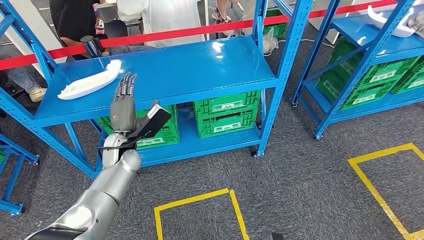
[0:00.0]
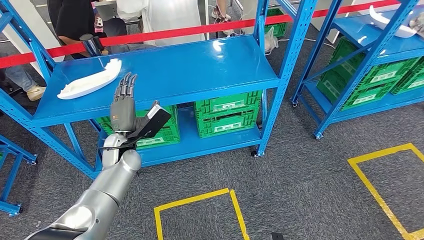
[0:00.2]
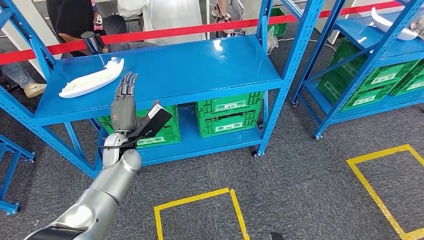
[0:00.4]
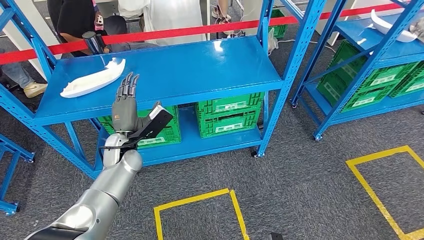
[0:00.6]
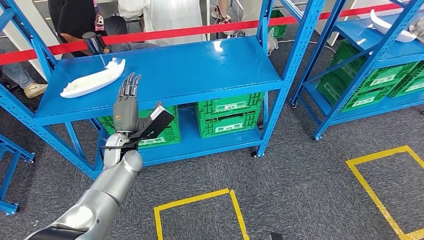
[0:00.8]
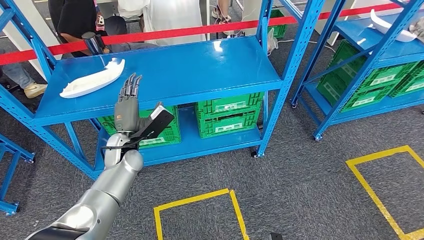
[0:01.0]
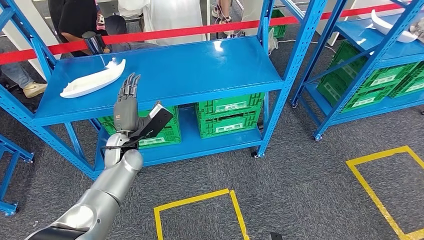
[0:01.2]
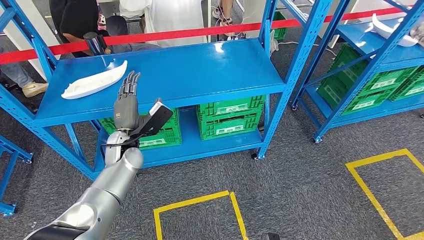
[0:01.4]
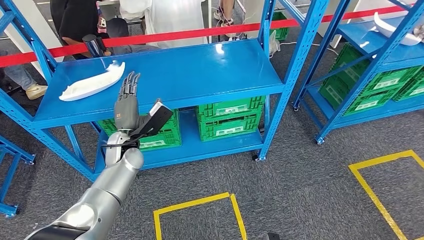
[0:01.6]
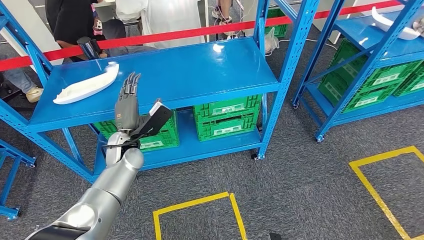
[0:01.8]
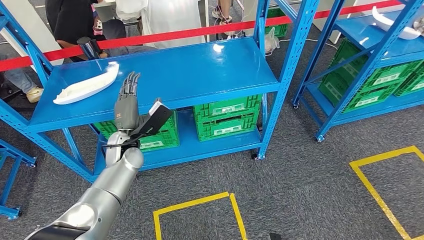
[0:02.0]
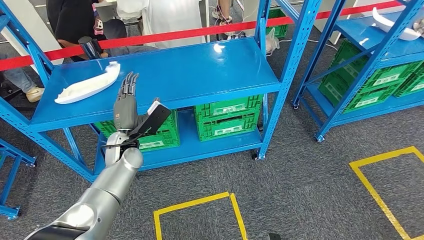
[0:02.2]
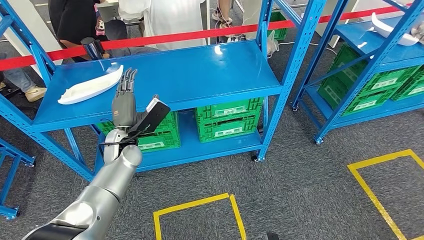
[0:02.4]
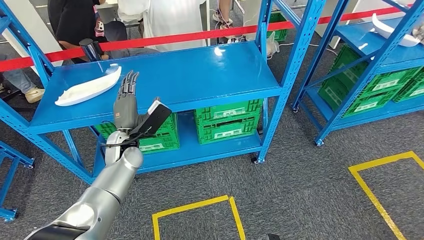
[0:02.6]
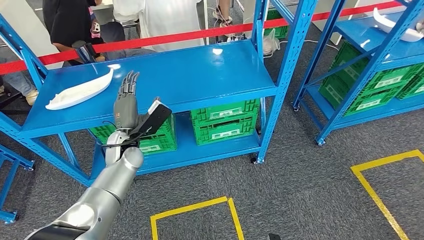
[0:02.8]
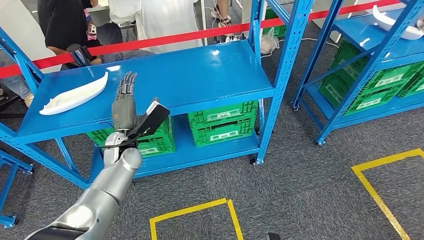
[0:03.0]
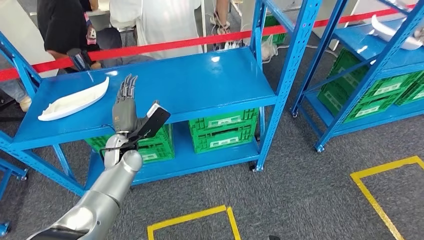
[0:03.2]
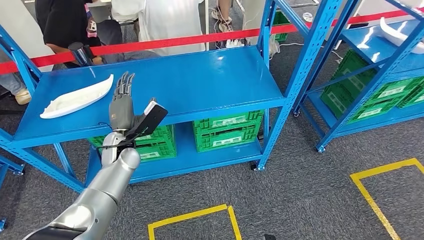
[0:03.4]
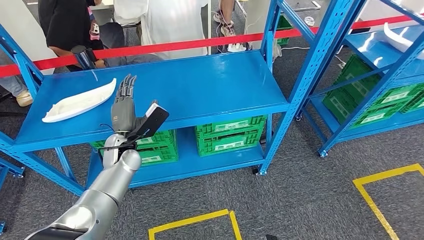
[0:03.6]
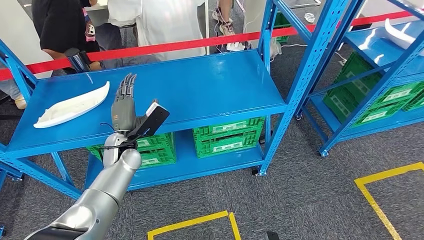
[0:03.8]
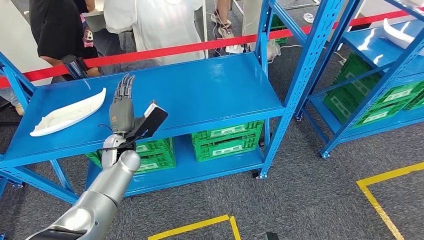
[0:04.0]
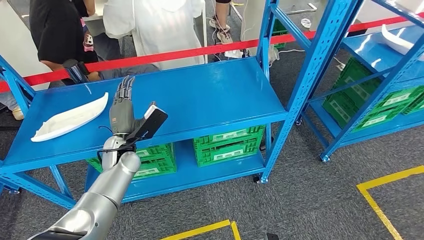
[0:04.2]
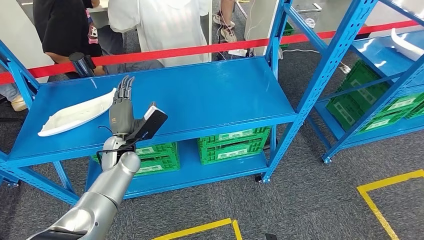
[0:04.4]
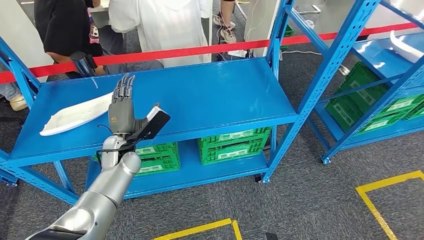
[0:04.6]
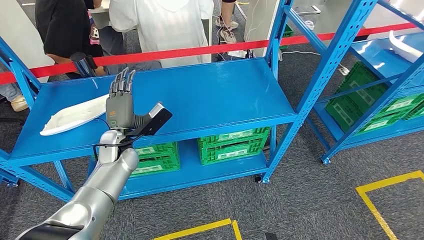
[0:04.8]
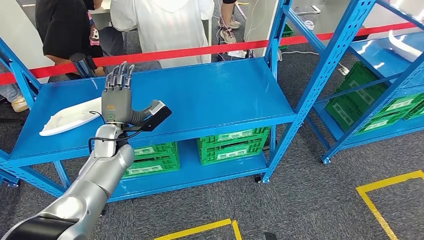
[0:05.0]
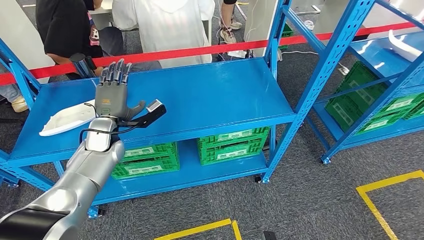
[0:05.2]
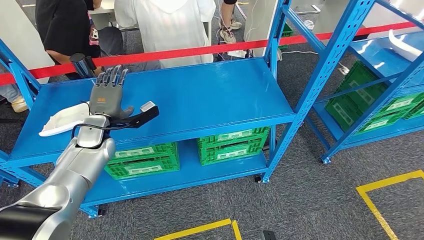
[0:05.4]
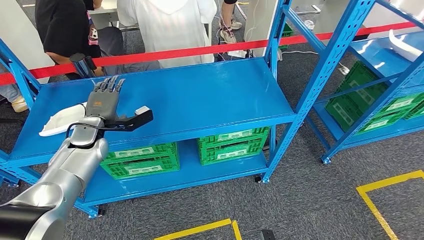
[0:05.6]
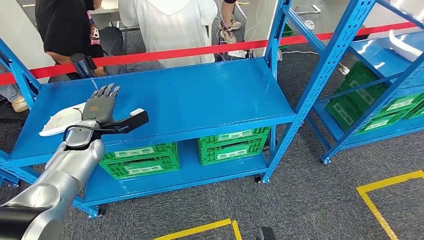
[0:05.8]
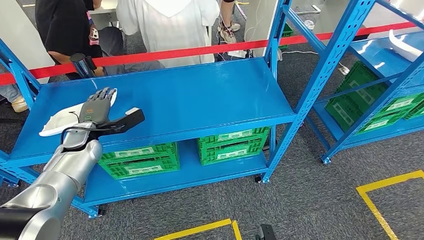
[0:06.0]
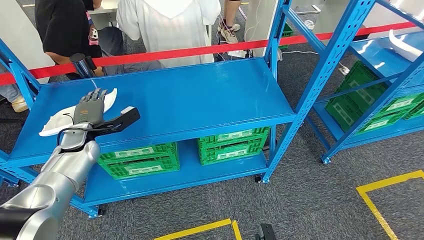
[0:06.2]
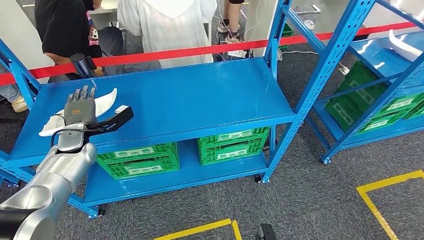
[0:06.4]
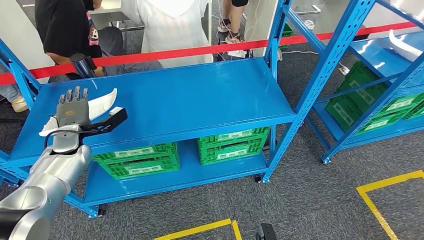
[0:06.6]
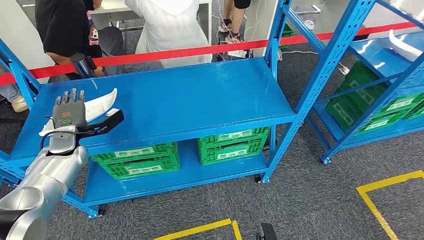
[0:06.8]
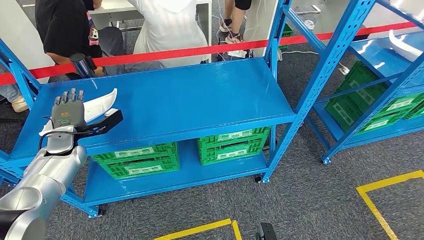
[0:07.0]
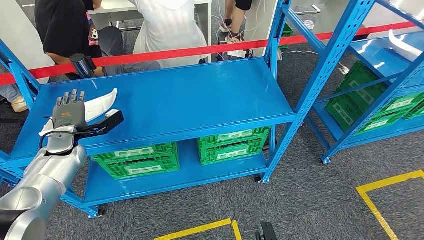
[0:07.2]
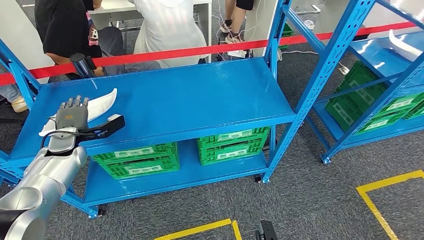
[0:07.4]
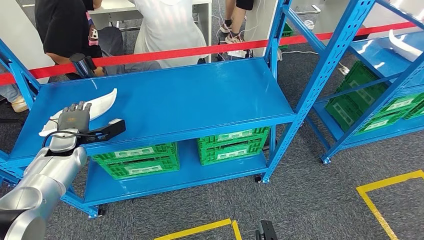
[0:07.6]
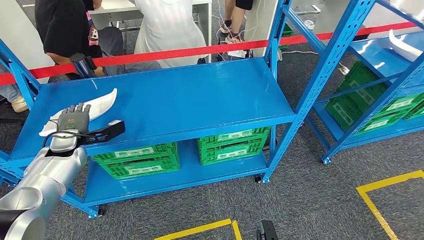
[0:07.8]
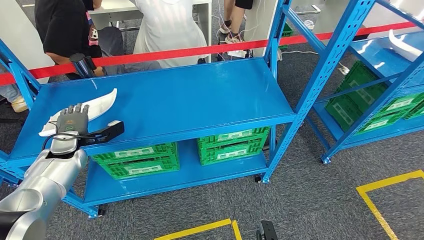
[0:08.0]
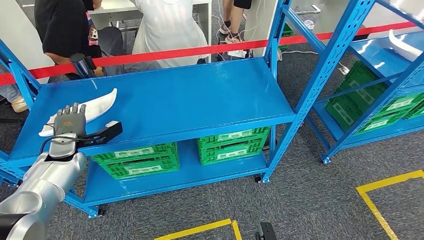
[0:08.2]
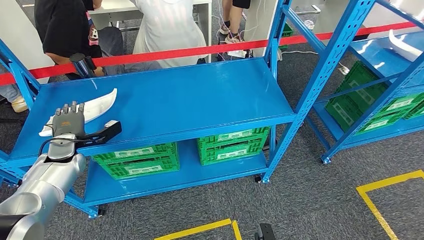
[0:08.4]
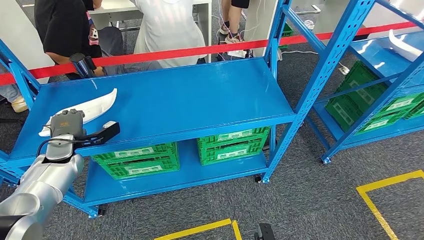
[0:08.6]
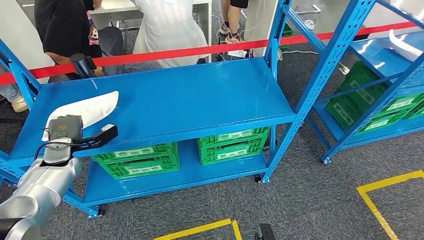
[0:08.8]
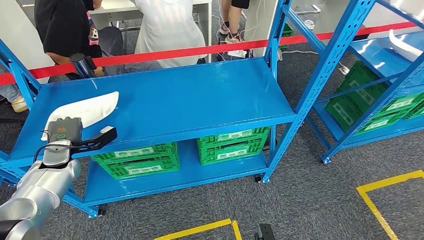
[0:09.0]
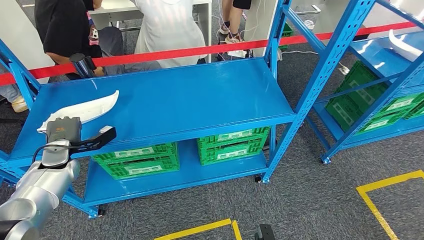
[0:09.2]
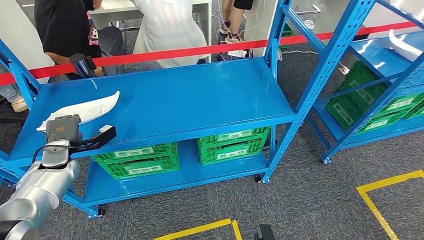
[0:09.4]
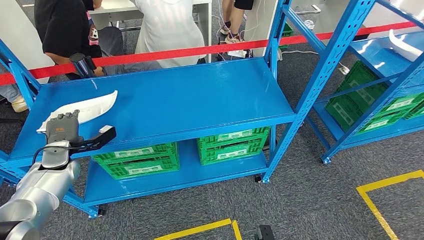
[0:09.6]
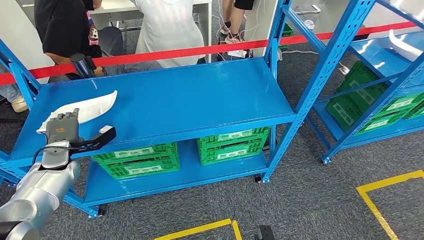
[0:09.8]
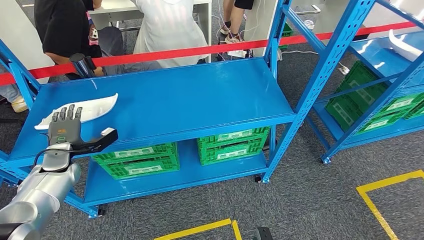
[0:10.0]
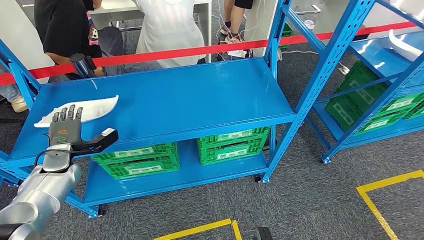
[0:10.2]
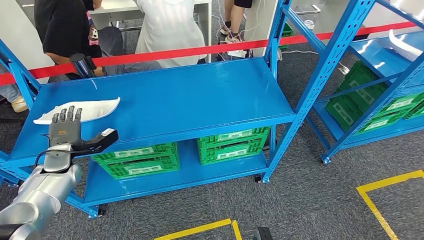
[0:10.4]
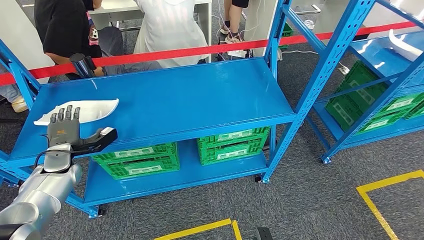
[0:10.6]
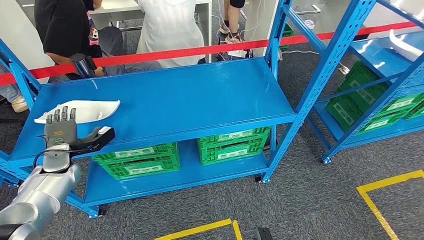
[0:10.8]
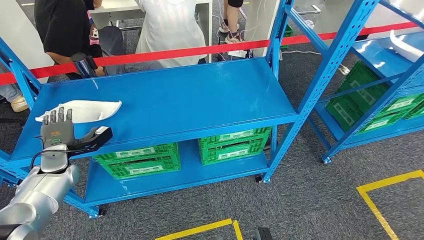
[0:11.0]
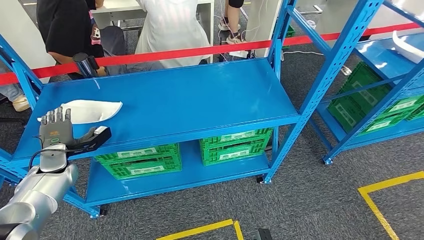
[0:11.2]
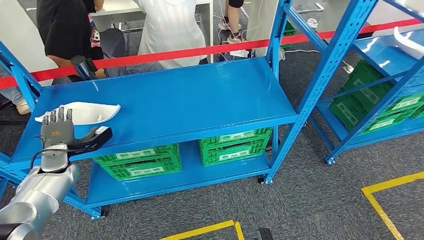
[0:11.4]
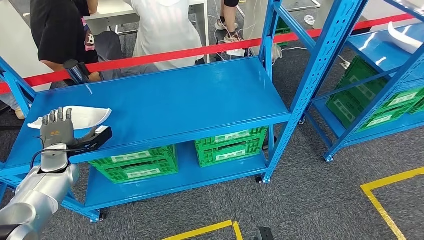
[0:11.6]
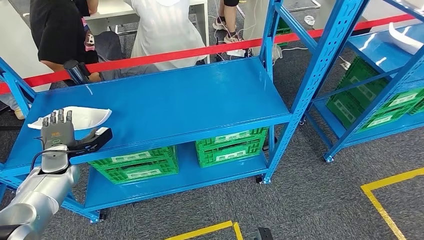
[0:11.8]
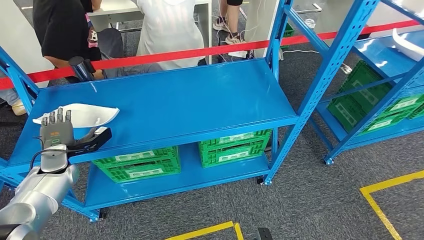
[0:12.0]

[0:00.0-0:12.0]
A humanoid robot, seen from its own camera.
0:04.4 to 0:06.0: The left hand shifts roughly 10 cm to the left.
0:06.0 to 0:07.6: The left hand heads to the left, covering some 5 cm.
0:07.6 to 0:12.0: The hands move only a little.

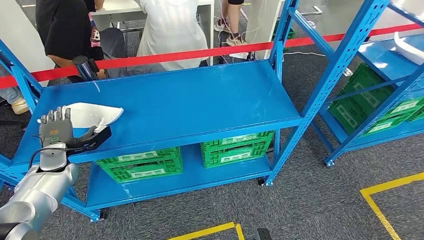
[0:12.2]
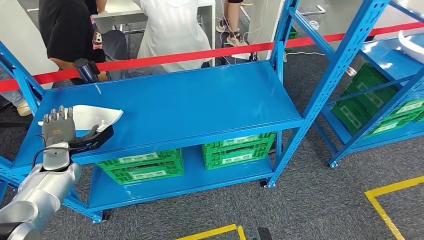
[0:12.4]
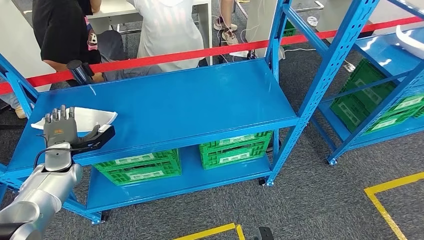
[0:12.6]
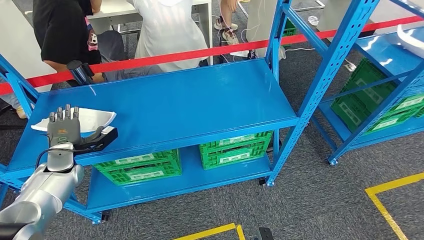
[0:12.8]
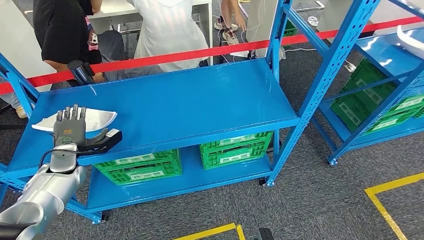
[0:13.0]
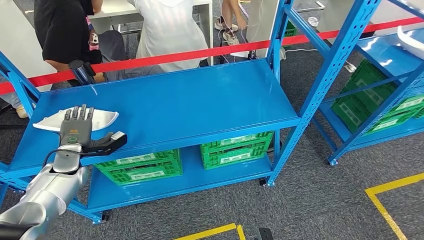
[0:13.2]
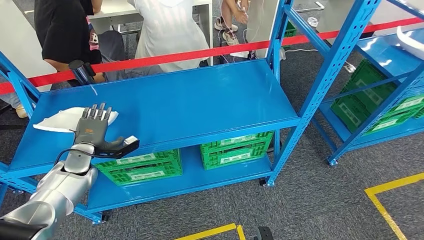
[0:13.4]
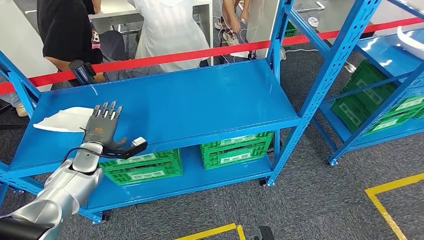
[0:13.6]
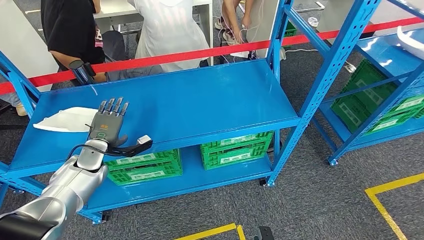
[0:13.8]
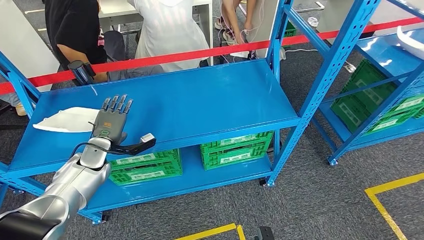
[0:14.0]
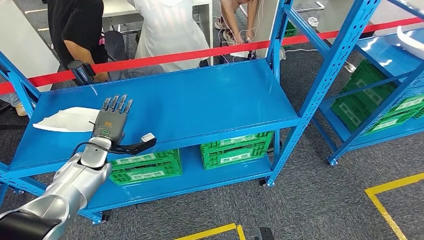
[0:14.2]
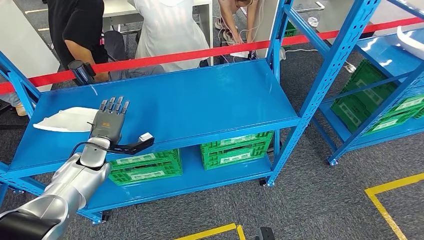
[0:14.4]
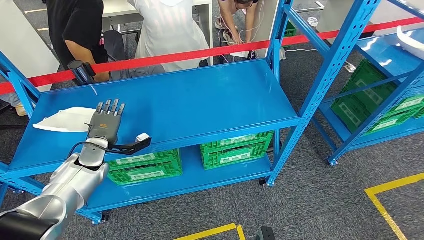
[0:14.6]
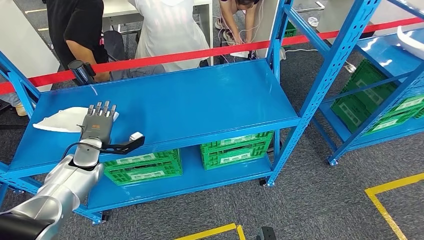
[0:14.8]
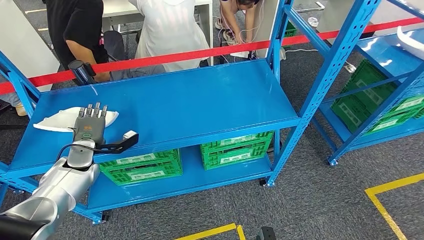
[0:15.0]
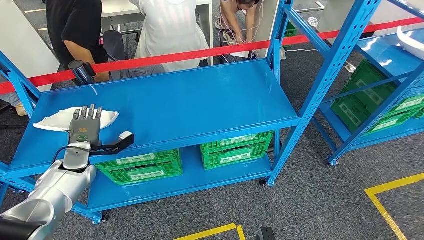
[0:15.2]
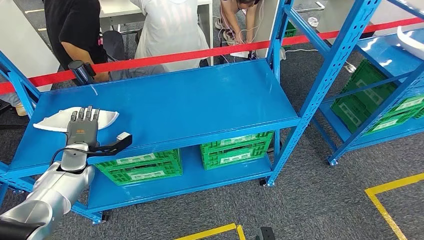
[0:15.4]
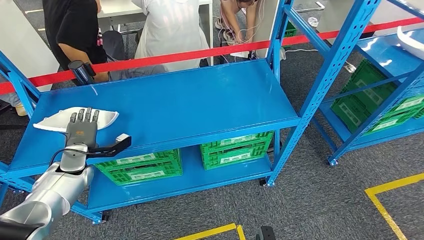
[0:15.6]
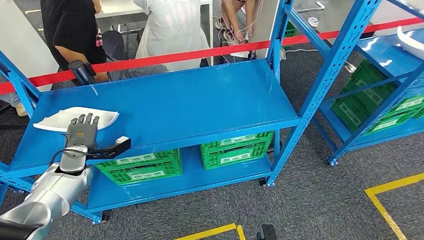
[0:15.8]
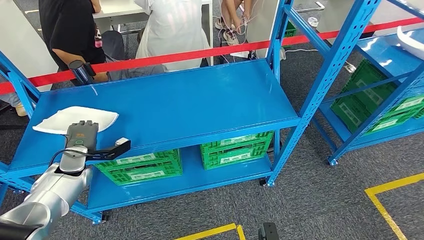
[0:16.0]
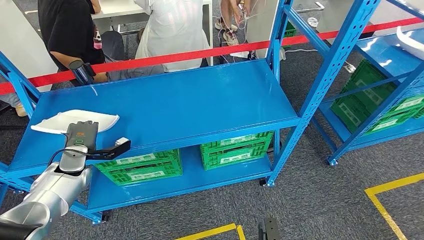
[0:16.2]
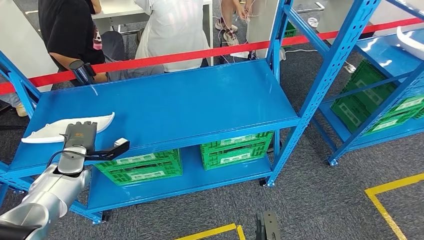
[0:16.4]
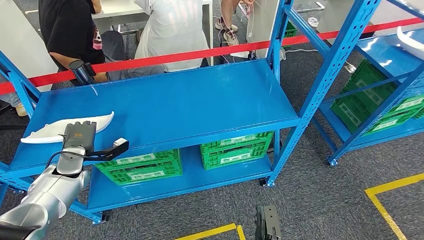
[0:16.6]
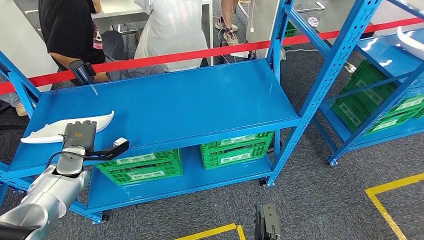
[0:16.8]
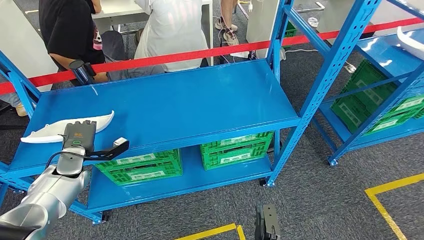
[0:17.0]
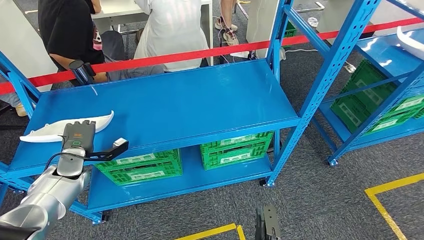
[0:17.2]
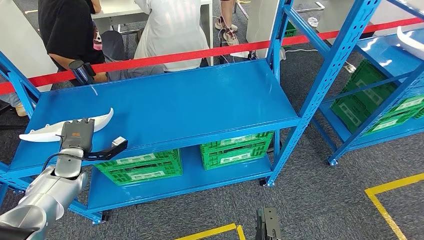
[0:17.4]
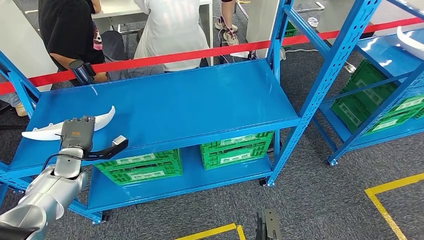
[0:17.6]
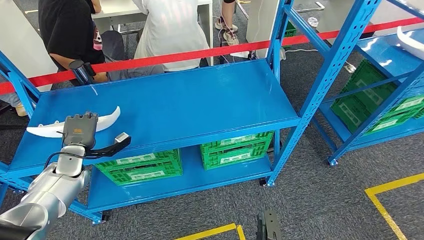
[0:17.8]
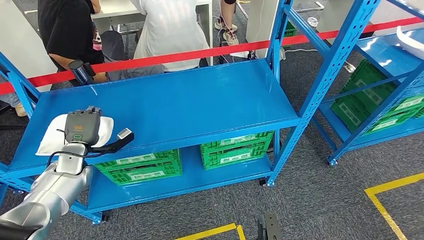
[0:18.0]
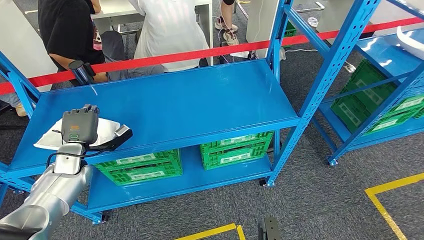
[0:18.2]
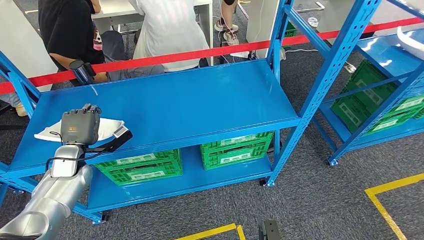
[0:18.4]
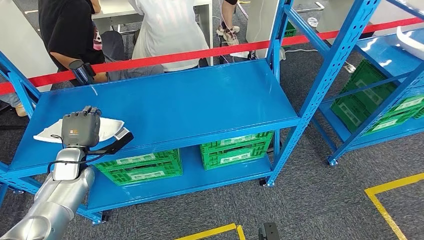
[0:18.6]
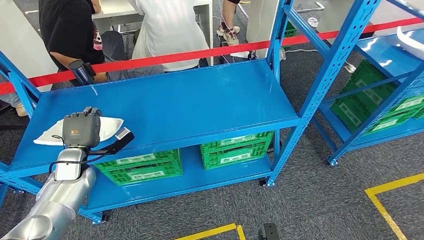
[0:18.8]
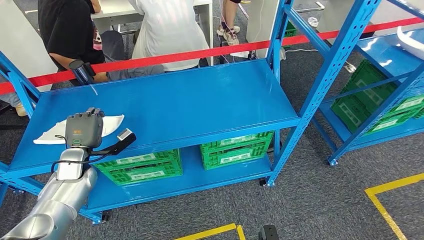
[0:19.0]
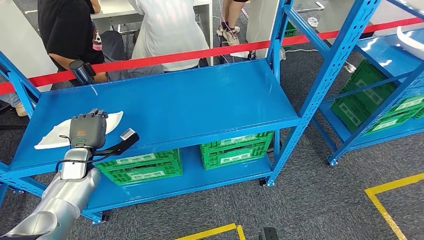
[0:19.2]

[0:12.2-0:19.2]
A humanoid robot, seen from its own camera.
0:13.6 to 0:15.0: The hands stay close to where they were, moving slightly.
0:16.4 to 0:17.8: The hands stay close to where they were, moving slightly.
